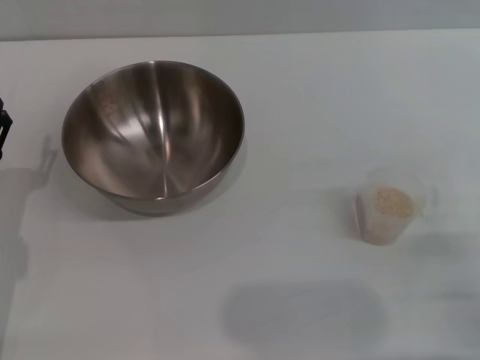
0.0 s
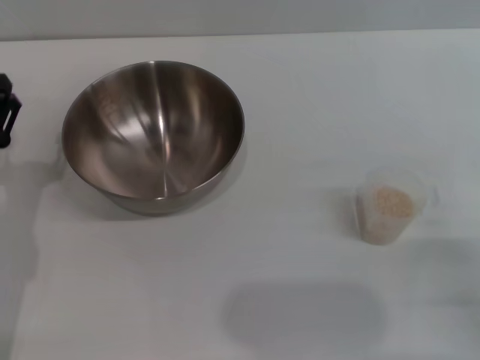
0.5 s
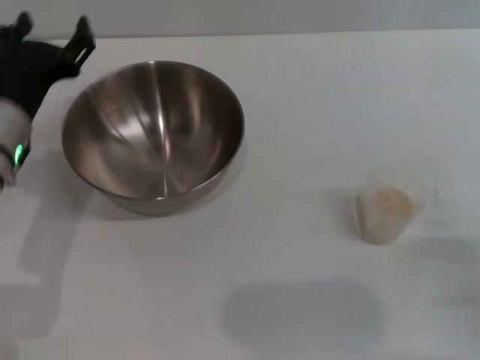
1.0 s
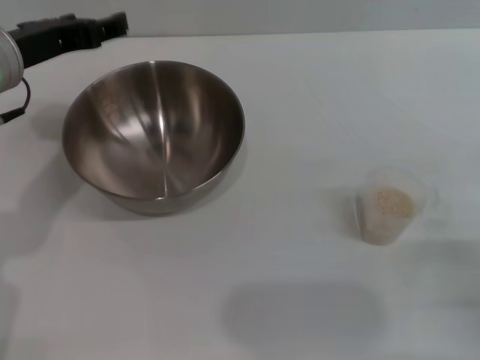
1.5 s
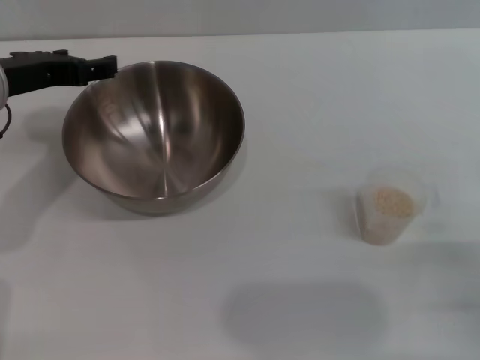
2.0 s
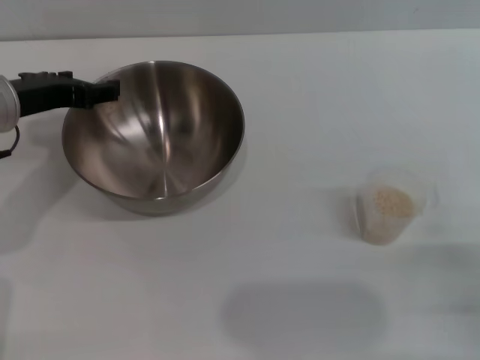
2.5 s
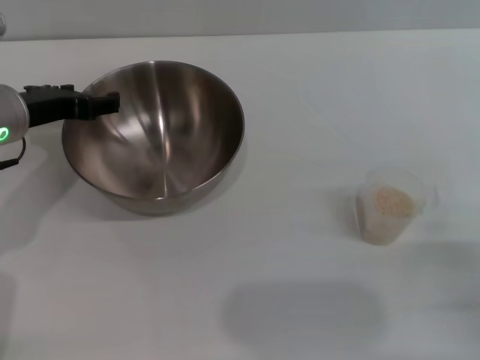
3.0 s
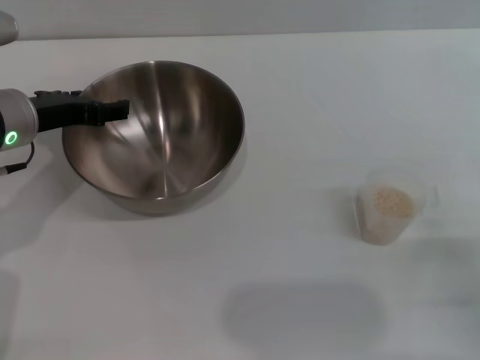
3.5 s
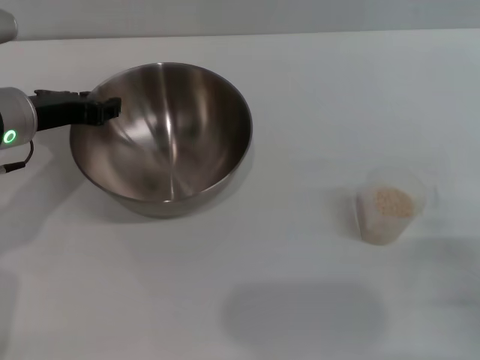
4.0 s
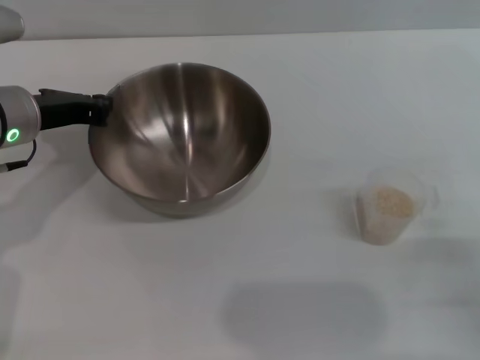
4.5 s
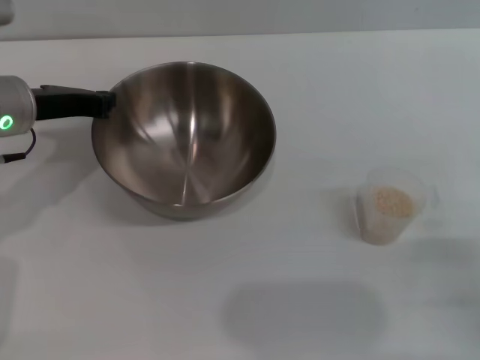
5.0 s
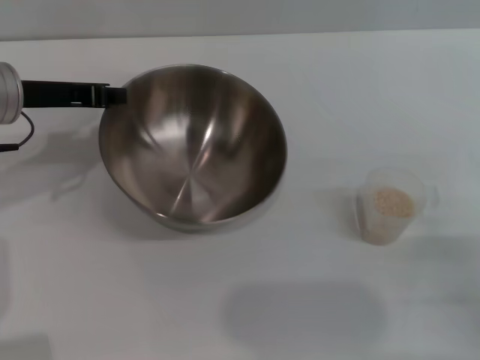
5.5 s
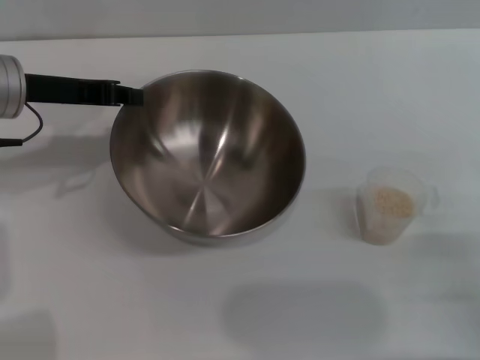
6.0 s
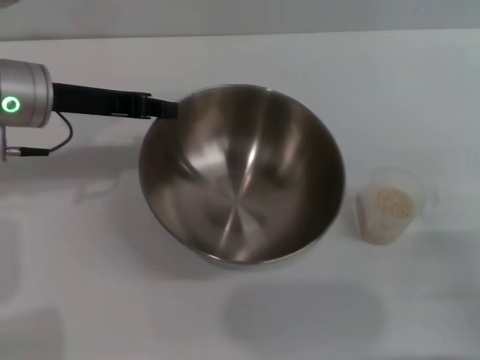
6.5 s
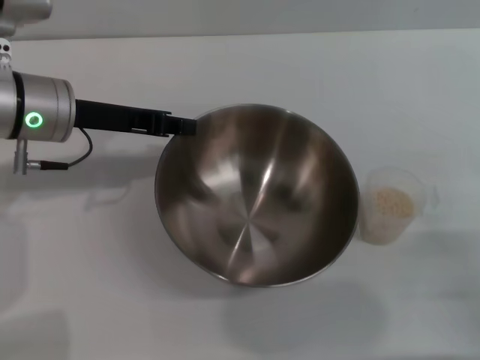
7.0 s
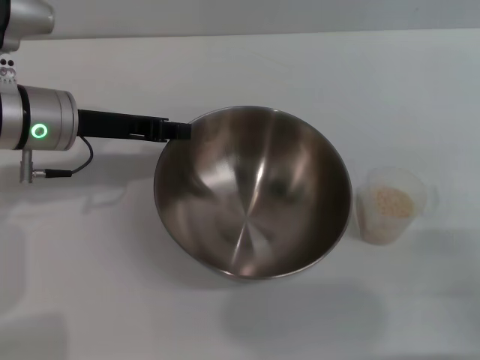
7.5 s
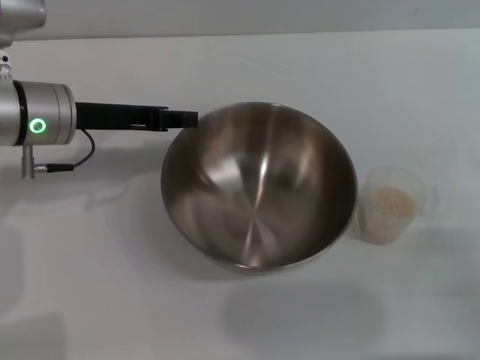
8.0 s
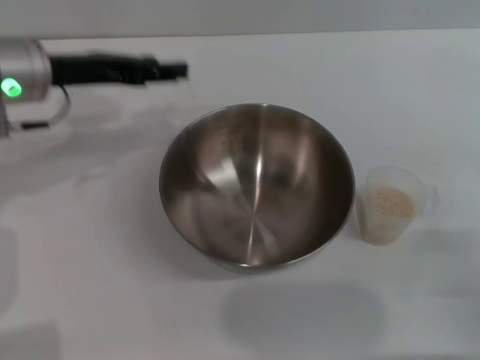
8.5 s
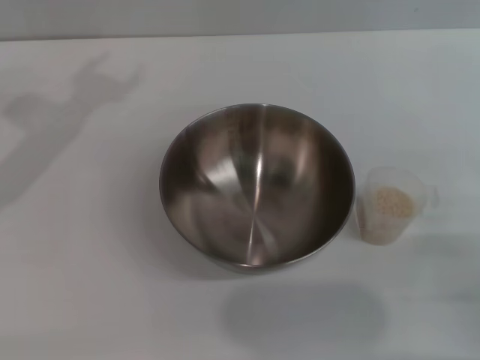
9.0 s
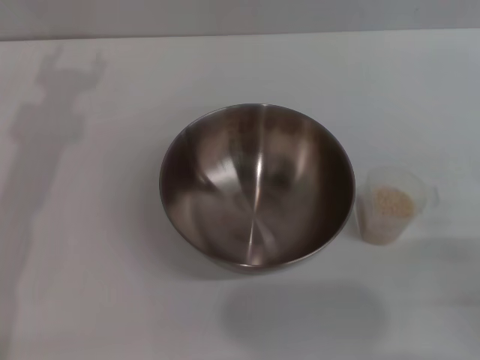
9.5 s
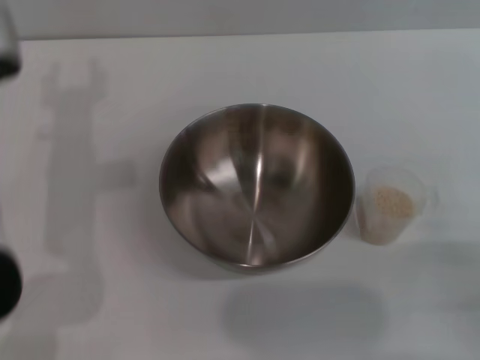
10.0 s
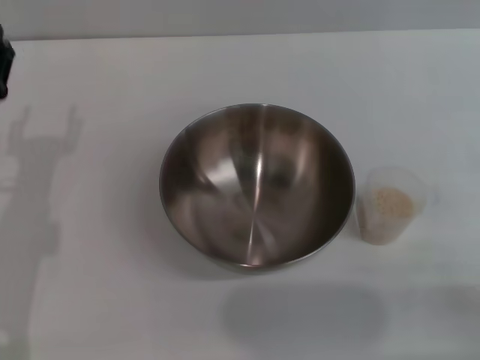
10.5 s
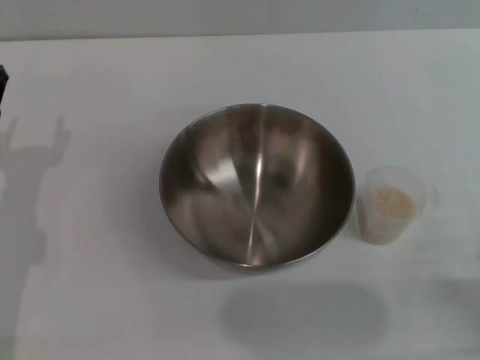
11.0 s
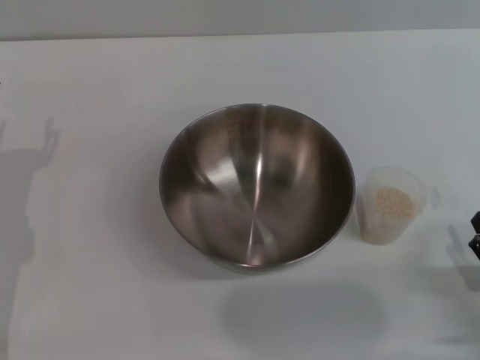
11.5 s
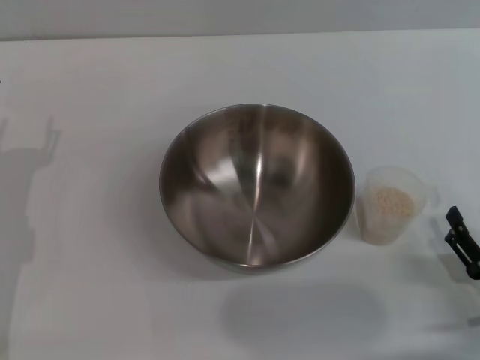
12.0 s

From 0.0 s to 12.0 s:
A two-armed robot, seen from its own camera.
Task of the whole recording: Place the bowl in the middle of the table with one hand and pour the rice from the grain cup into it with the other hand.
Step, from 0.0 s to 5.5 s: Pick up the bowl with the left gripper.
Step, from 6.0 s to 8.5 s: Place the bowl in the center of view with the left gripper.
From 0.0 s to 2.0 s: The left gripper goes about 20 cm upward and forward.
From 2.0 s to 4.0 s: There are only small adjustments of the grippers.
From 4.0 s to 6.0 s: The left gripper closes its fingers.
From 8.0 s to 10.0 s: The left gripper opens its fingers.
From 10.0 s to 12.0 s: The left gripper is displaced downward, to the left and backward by about 15 cm; the right gripper goes about 5 cm downward.

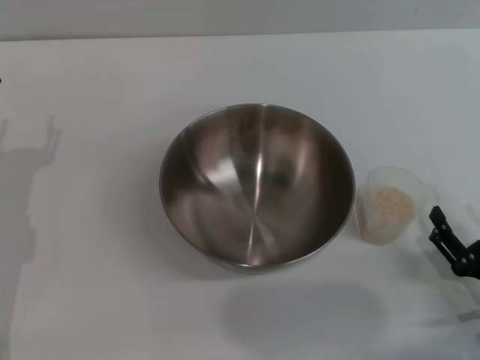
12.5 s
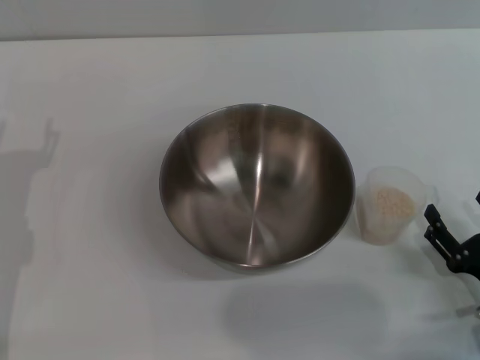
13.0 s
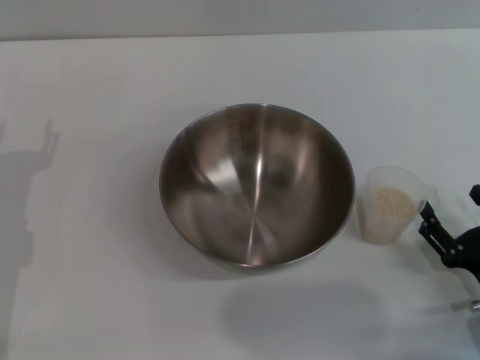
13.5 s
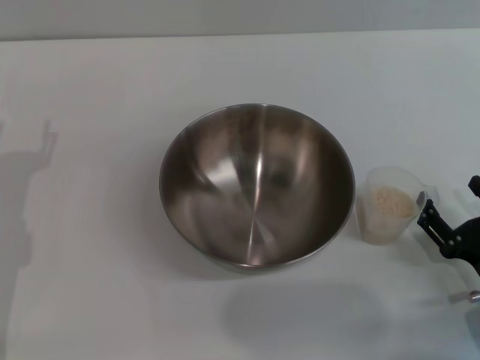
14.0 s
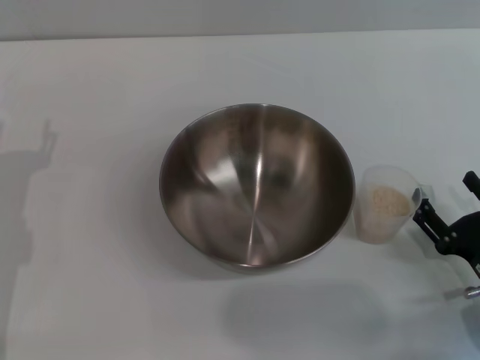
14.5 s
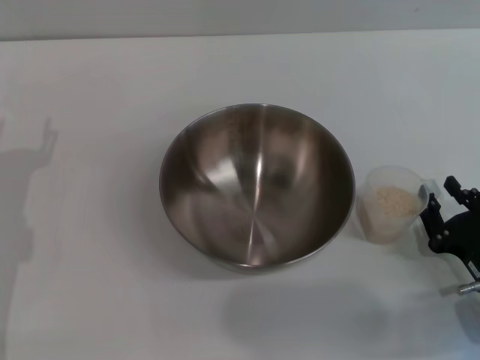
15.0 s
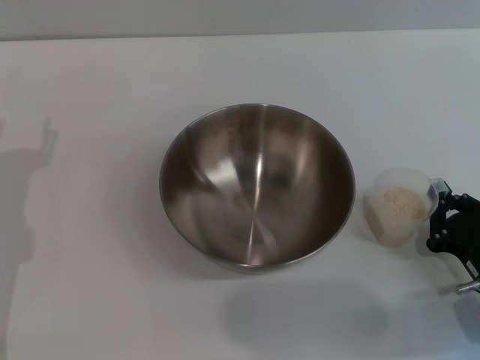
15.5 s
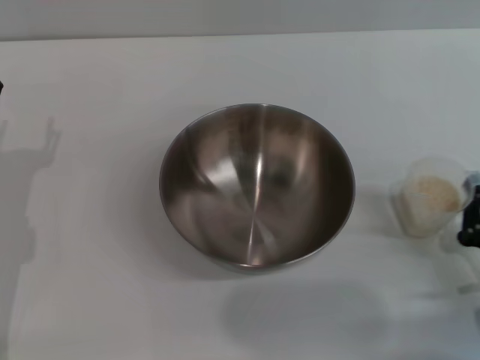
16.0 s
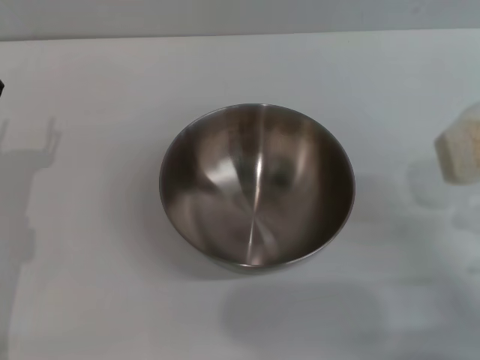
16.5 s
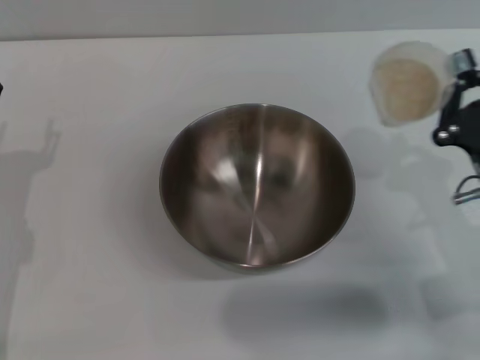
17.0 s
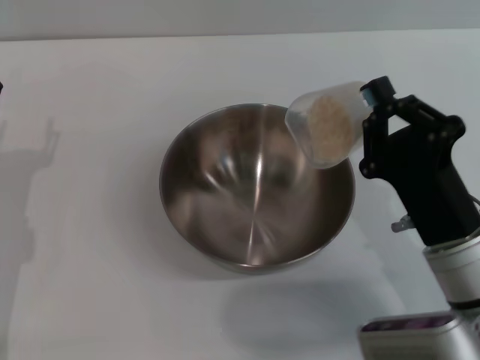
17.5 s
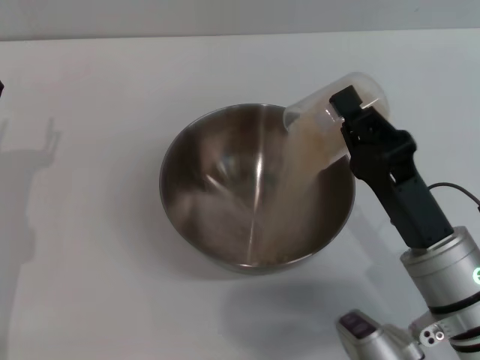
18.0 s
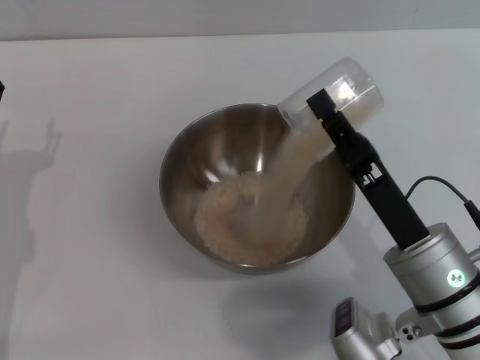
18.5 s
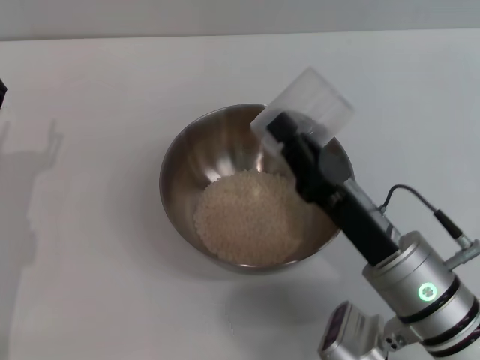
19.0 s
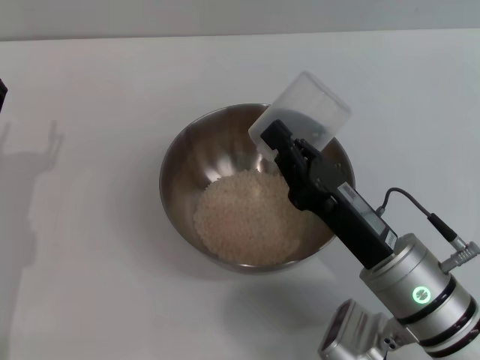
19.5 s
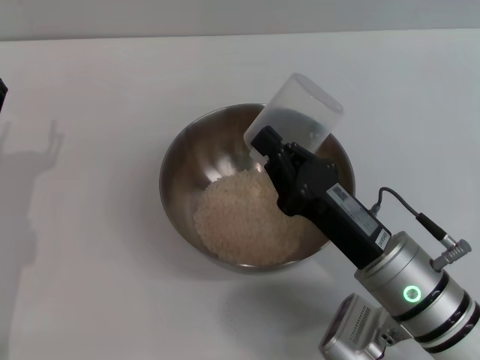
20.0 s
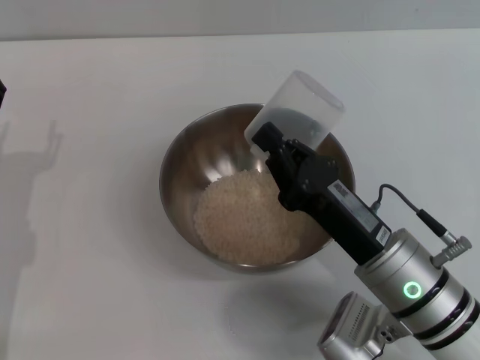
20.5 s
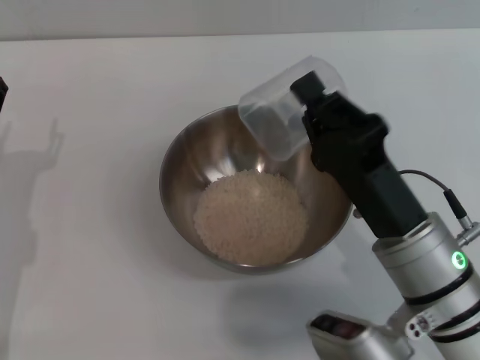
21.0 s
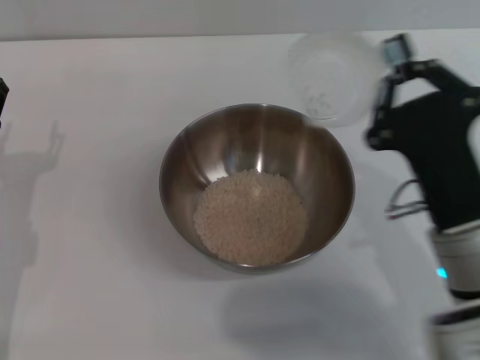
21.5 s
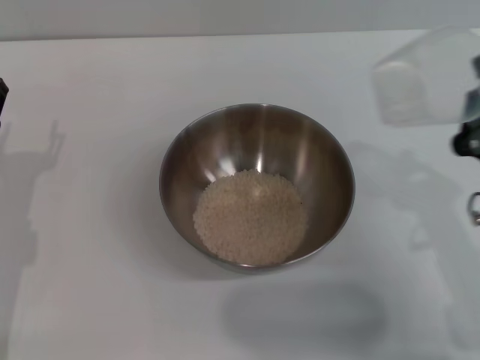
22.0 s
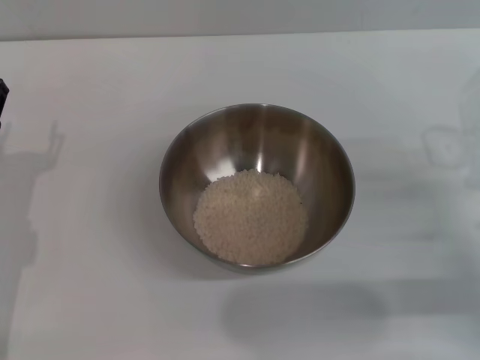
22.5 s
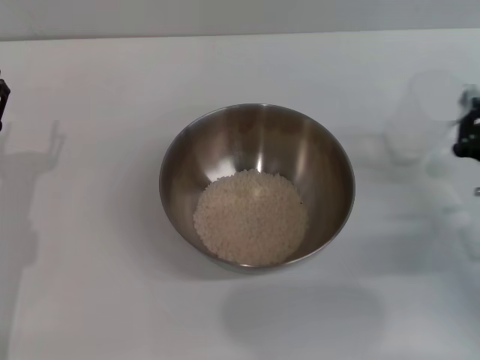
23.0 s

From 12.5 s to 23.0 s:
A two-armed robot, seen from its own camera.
Task of the whole recording: Place the bowl in the middle of the table with one hand and pour the rice from the grain cup into it with the other hand.
Step, from 12.5 s to 16.0 s: Pick up the cup with rice in it with the right gripper.
Step, from 16.5 s to 21.5 s: Pour the rice from the cup into the bowl with the right gripper.
From 12.5 s to 14.5 s: The grippers stay close to where they were, moving slightly.
From 14.5 s to 16.5 s: The right gripper closes.
From 16.5 s to 19.0 s: The right gripper moves to the left, roughly 15 cm.
From 21.0 s to 23.0 s: The right gripper is displaced to the right by some 15 cm.

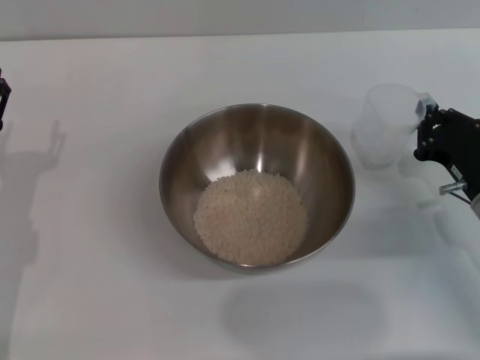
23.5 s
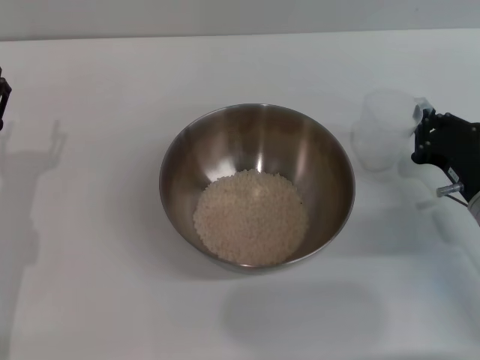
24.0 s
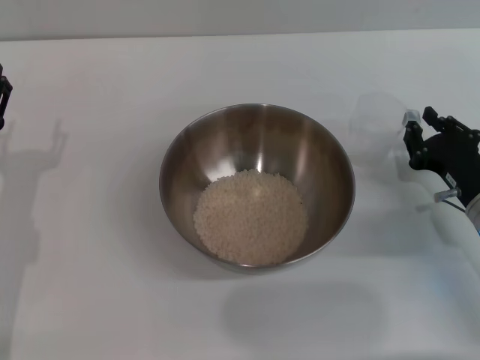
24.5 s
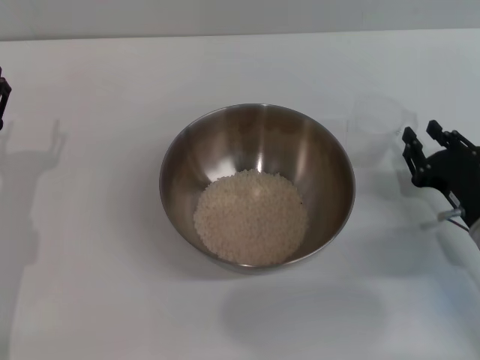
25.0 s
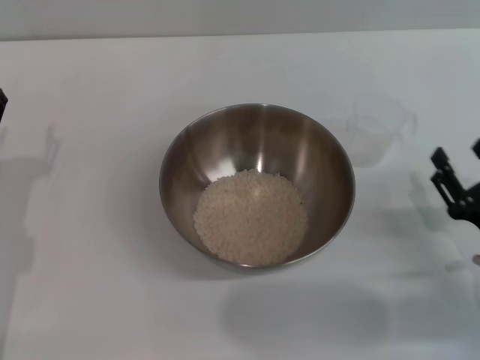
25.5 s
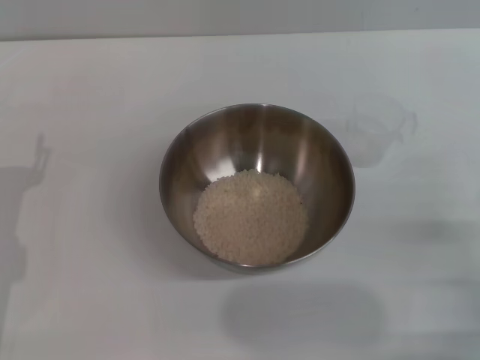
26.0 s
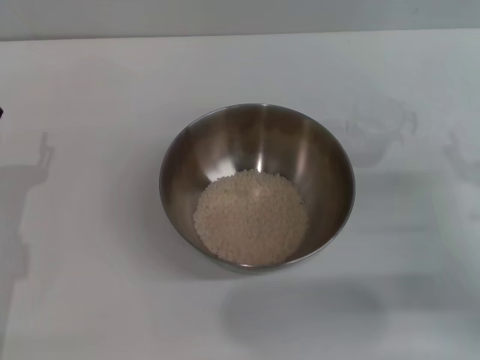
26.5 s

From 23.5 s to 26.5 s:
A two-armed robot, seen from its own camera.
Task of the whole recording: Place the bowl in the middle of the table with one hand and pour the rice from the grain cup into it with the other hand.
From 23.5 s to 25.0 s: The right gripper opens.
From 25.0 s to 26.5 s: The right gripper reaches about 10 cm backward, then returns, and opens up.
